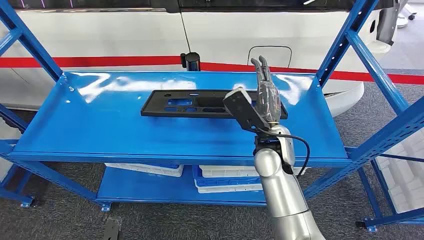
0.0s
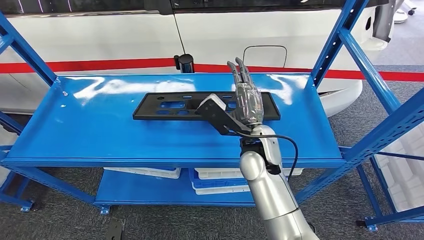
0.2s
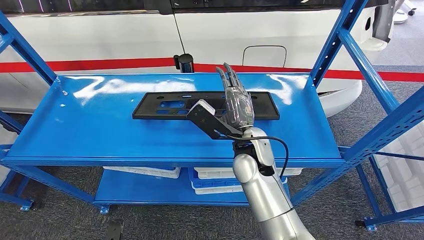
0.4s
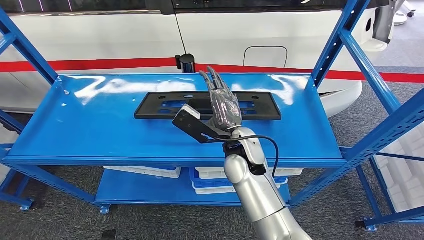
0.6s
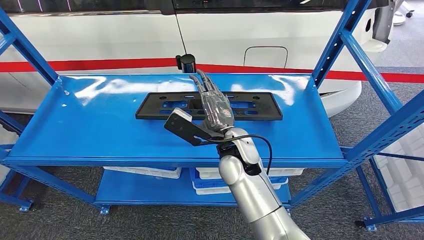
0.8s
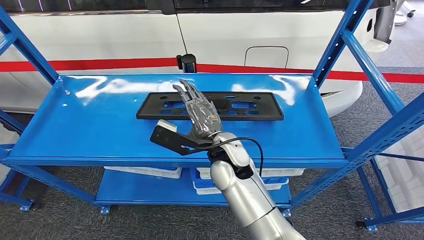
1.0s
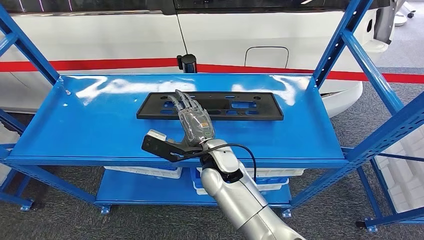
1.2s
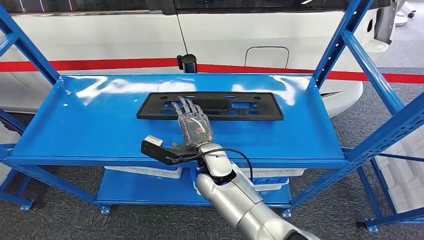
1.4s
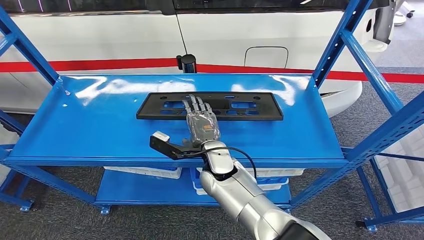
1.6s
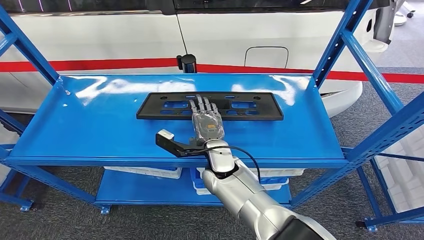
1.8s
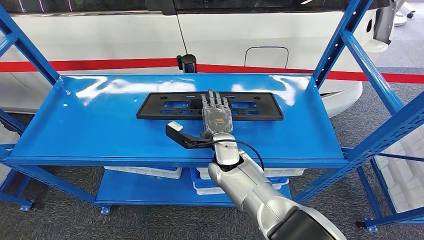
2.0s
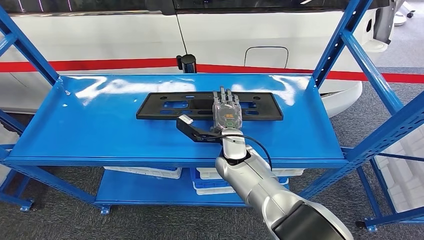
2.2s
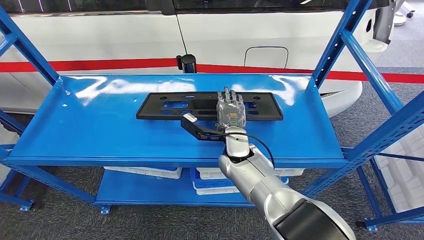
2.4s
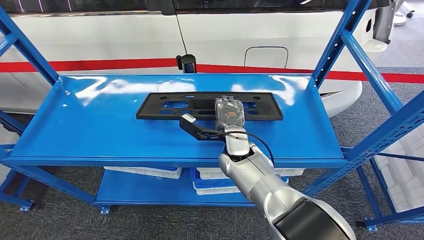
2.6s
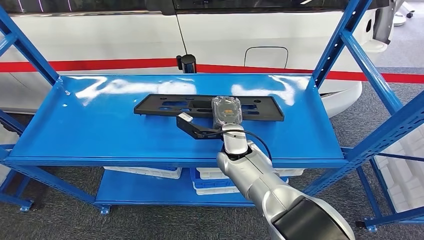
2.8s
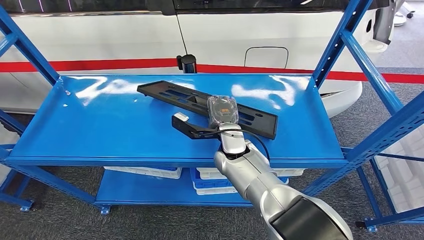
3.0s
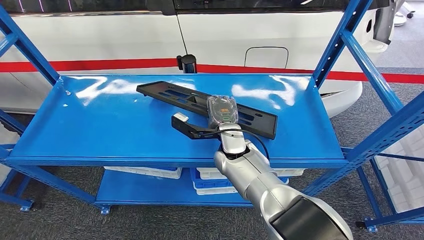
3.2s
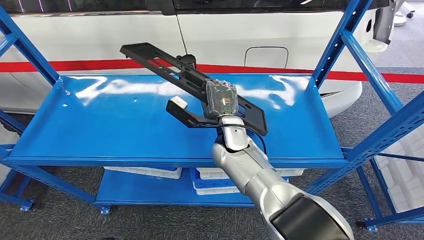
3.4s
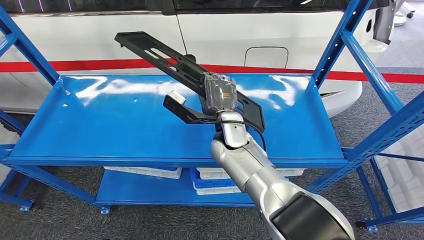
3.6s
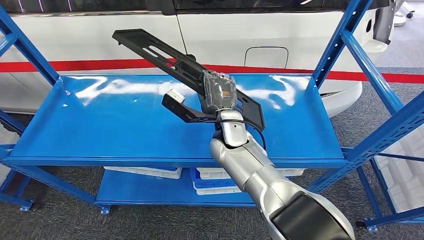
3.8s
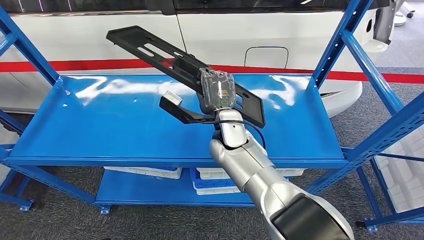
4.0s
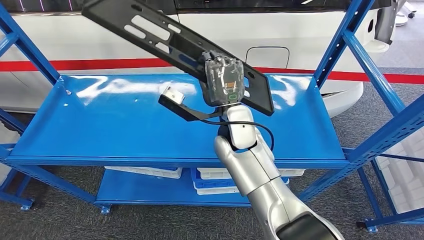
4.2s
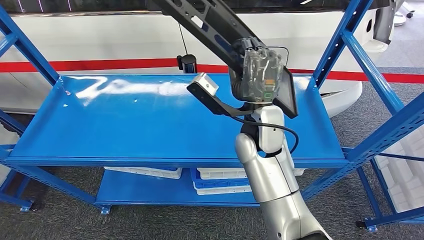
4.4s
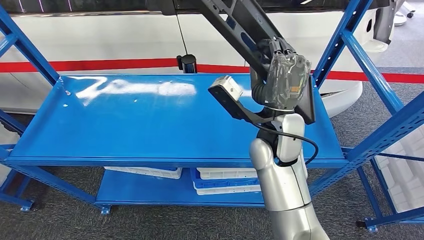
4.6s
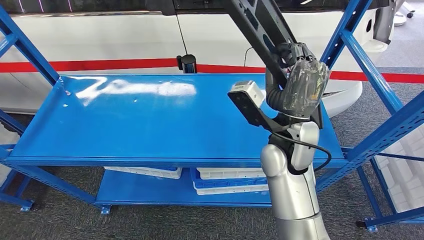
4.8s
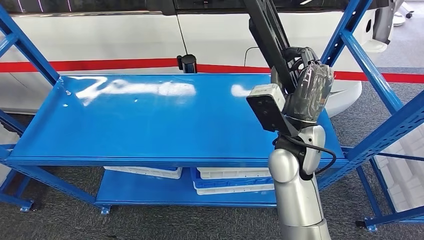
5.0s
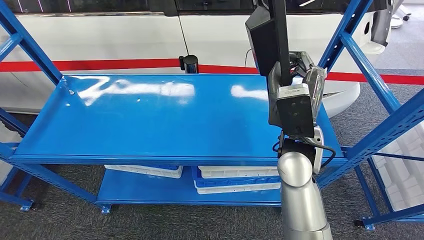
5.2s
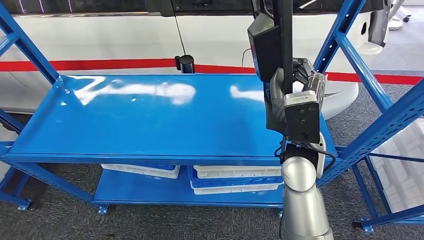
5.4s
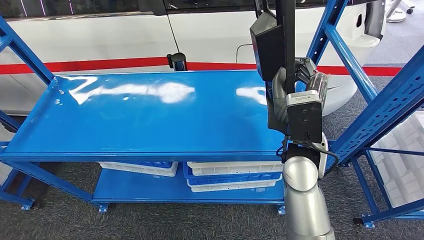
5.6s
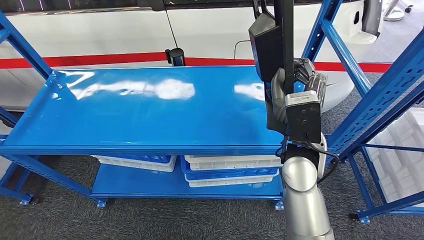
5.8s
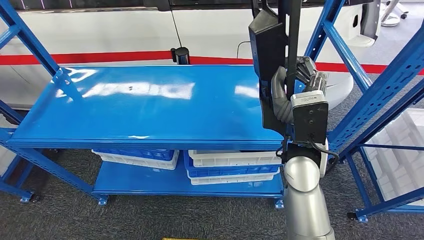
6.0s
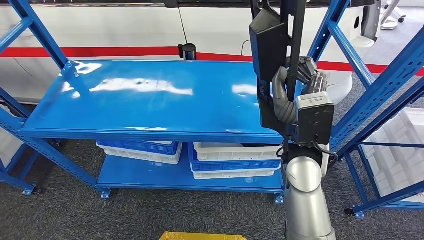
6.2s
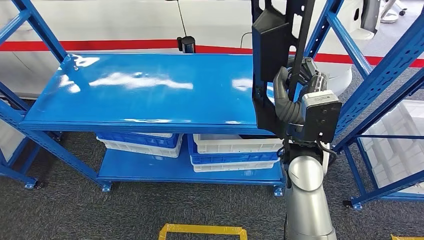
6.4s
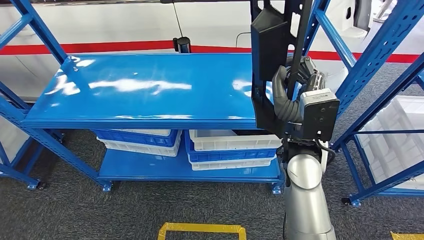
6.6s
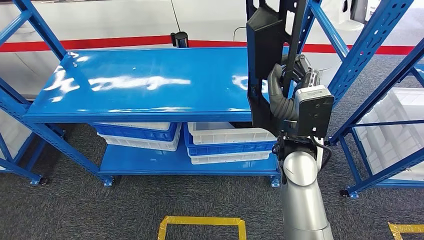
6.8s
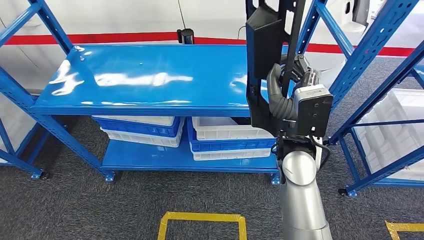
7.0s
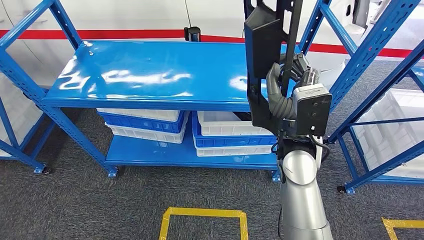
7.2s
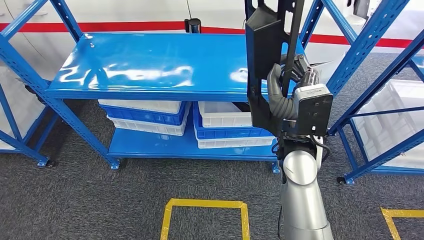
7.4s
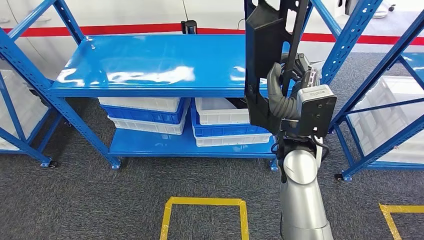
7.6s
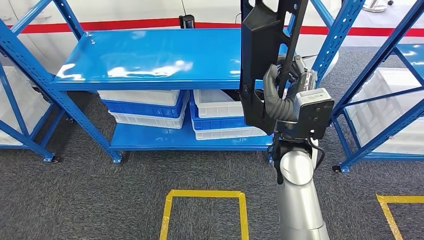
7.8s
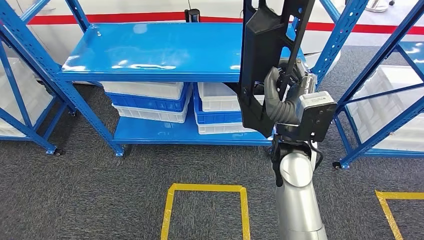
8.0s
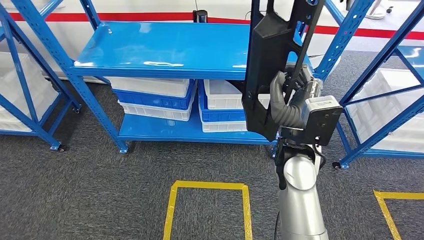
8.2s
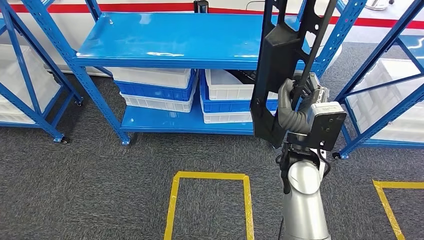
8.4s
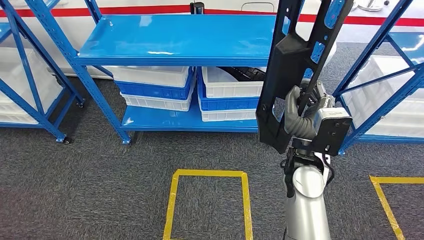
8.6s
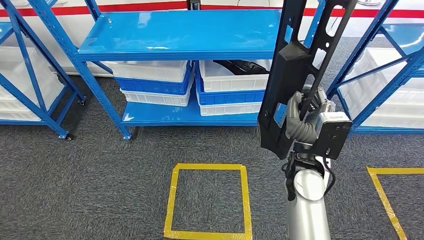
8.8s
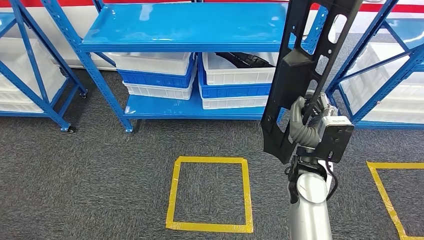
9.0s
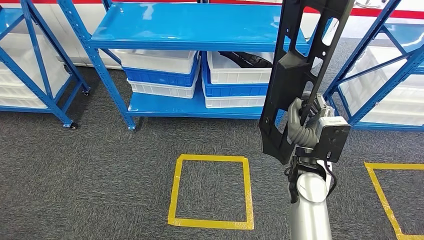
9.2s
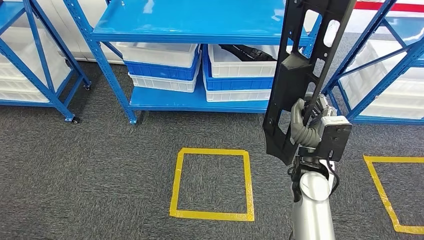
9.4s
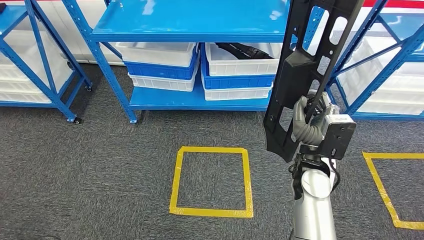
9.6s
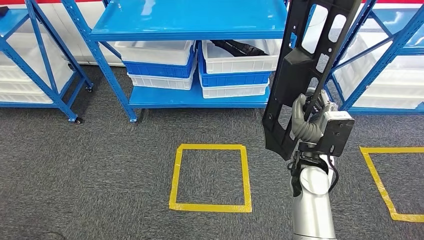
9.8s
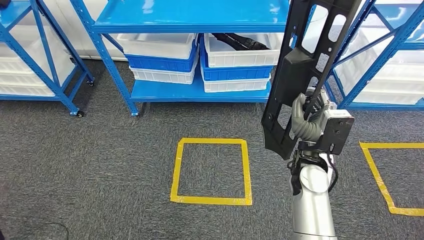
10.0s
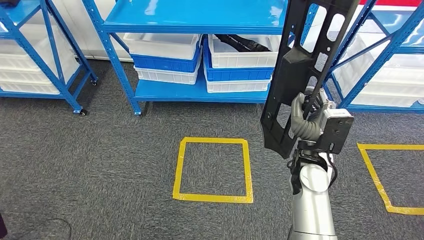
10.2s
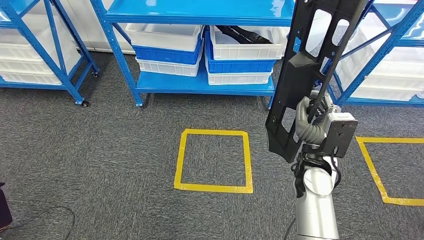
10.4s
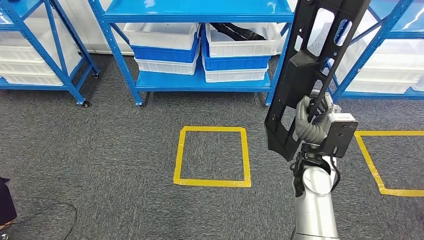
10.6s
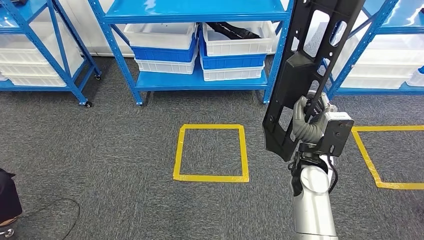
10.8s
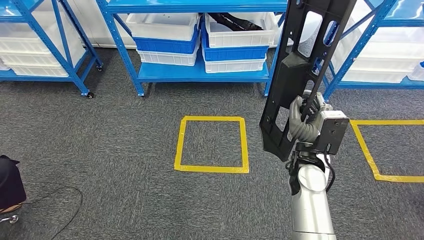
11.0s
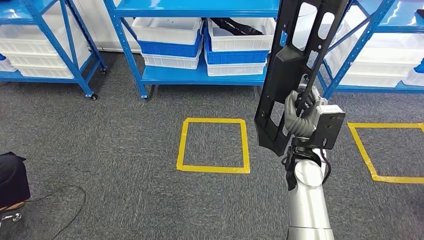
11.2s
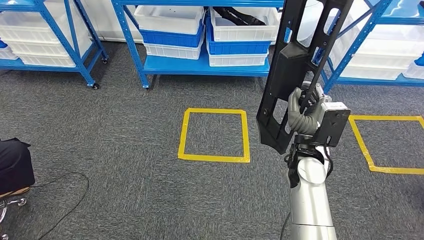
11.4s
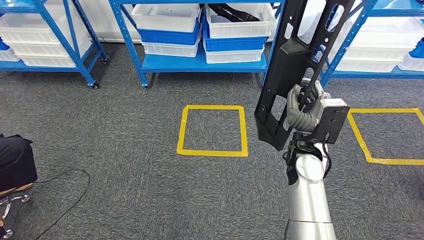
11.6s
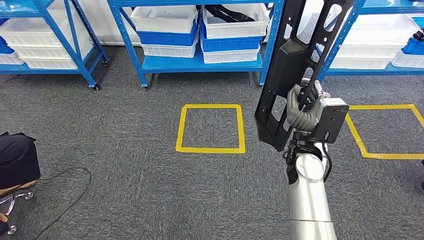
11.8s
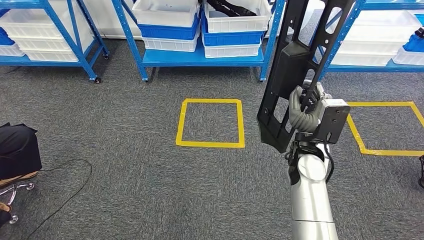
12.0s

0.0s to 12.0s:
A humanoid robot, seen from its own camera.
Step, 0.0s to 6.2s: Pick up the large material from the shelf.
1.6s to 3.0s: The right hand moves forward and to the right, about 10 cm.
3.0s to 4.4s: The right hand goes roughly 10 cm upward.

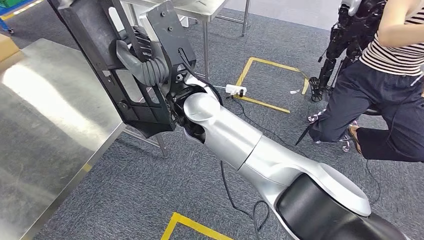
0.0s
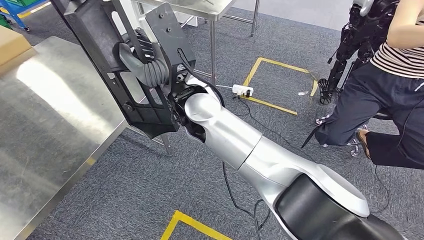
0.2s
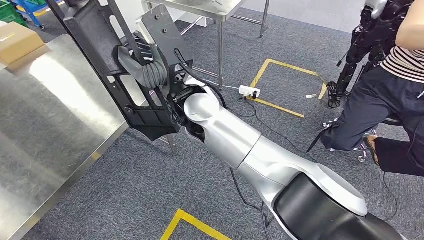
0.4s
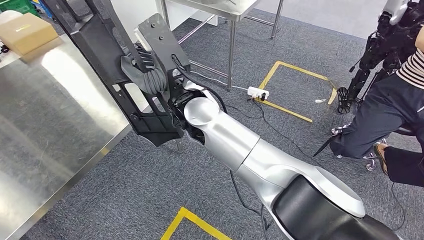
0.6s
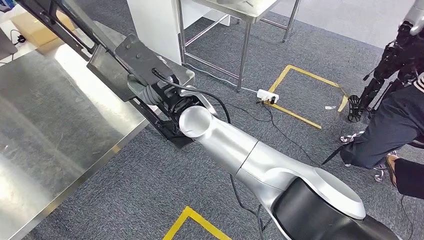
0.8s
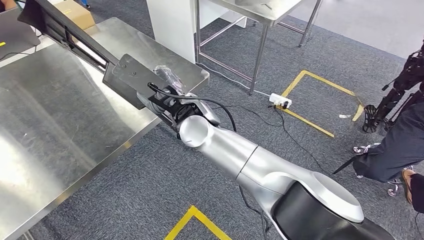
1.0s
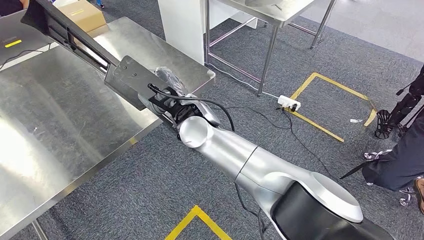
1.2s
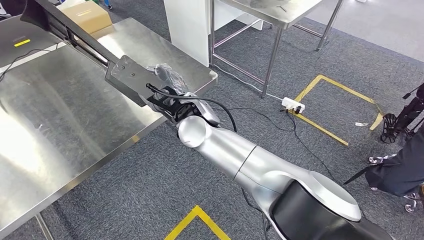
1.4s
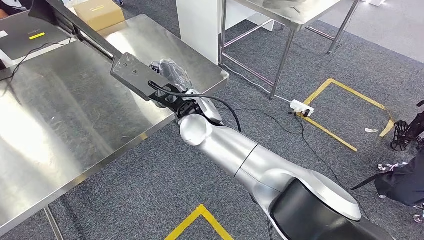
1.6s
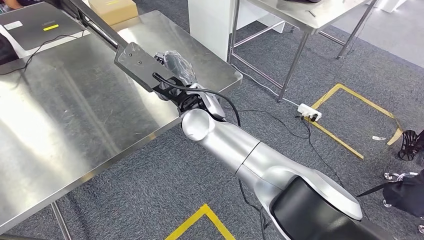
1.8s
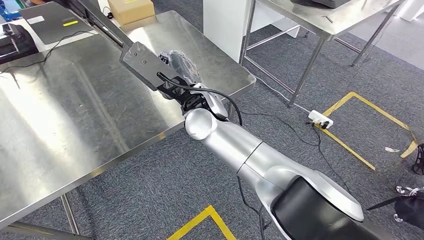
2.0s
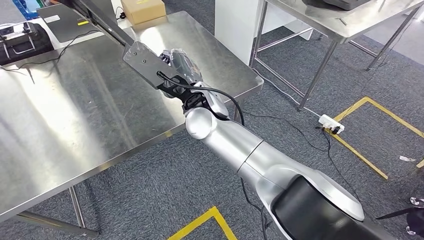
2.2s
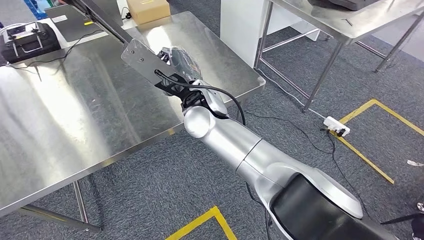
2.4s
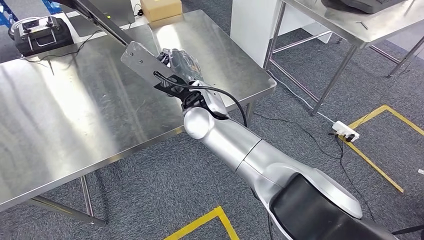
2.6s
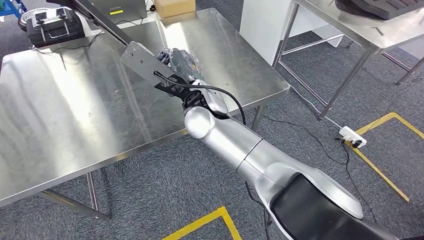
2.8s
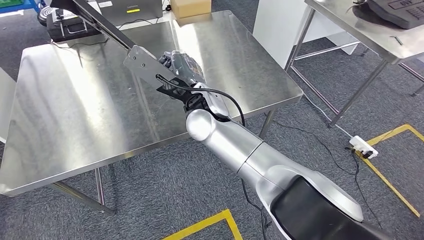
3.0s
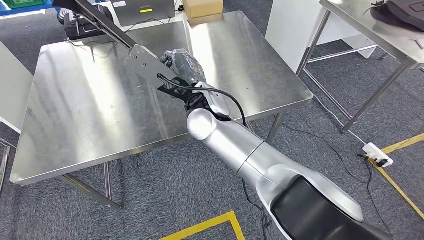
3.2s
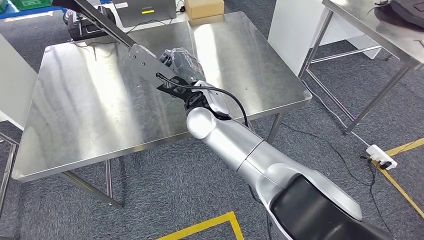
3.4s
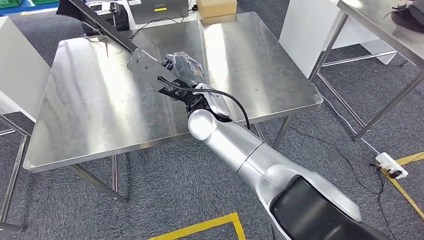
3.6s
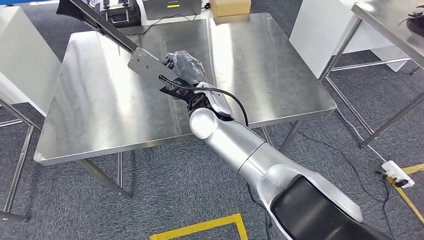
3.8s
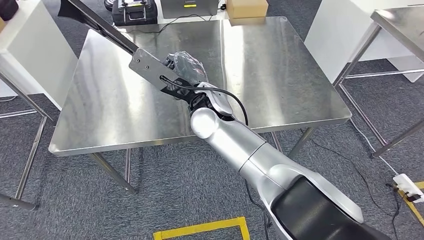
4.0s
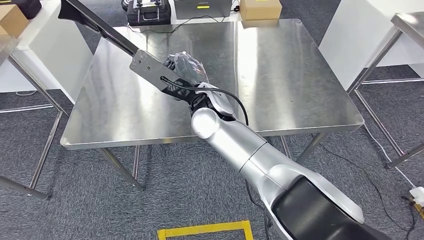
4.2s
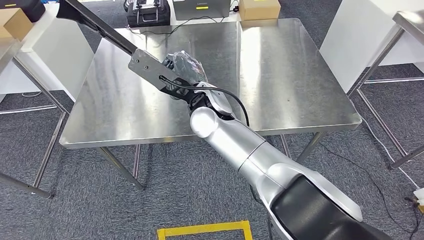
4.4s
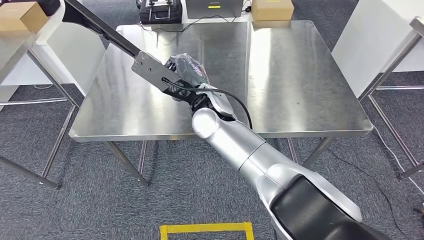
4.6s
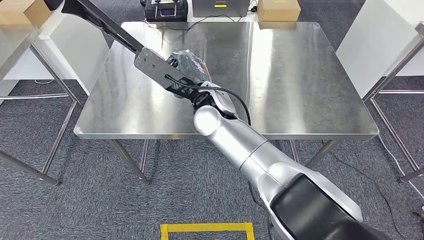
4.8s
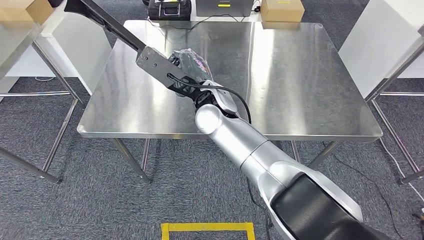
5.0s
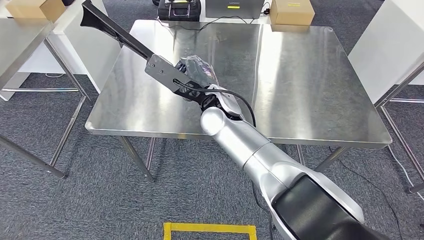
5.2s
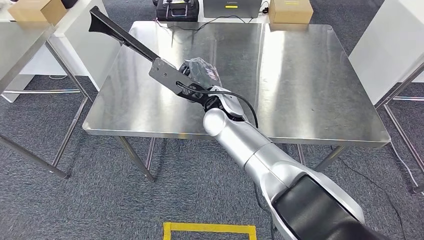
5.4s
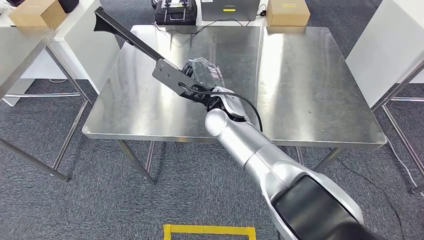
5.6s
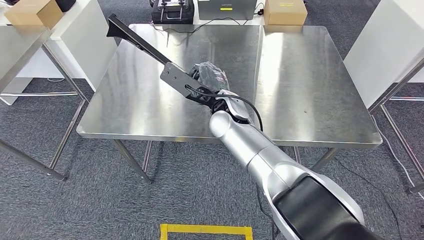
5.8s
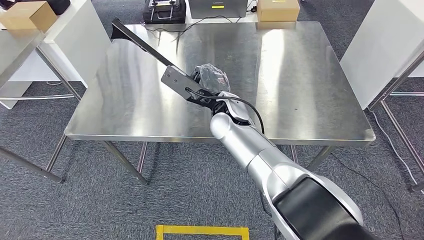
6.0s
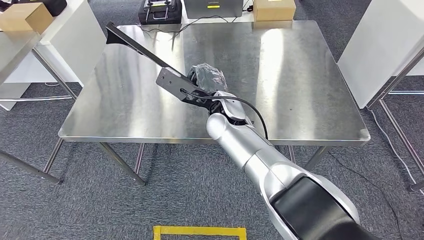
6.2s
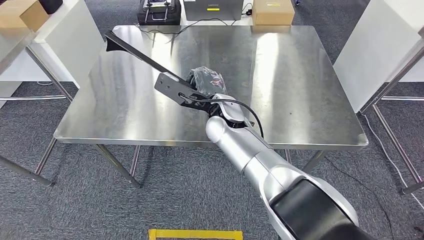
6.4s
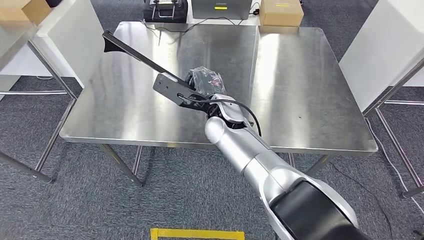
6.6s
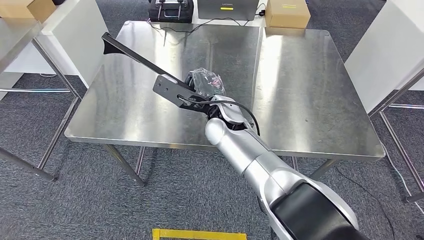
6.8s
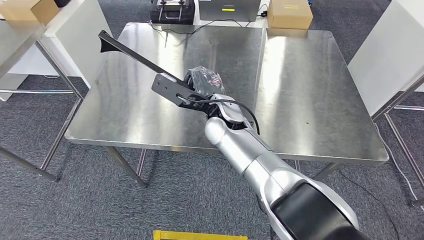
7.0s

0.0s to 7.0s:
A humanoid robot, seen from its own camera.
Step, 0.0s to 2.0s: Move the large material to the front of the workbench.
